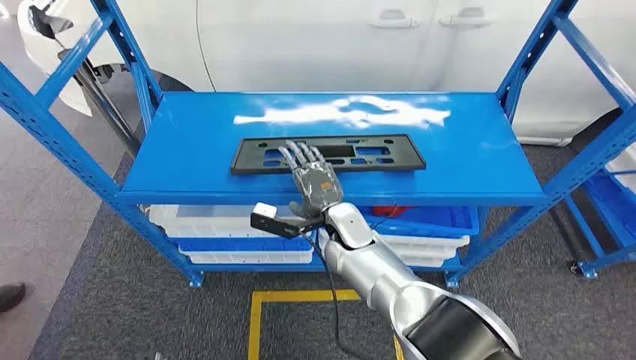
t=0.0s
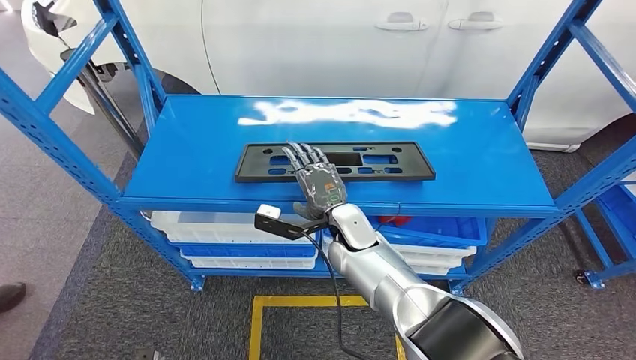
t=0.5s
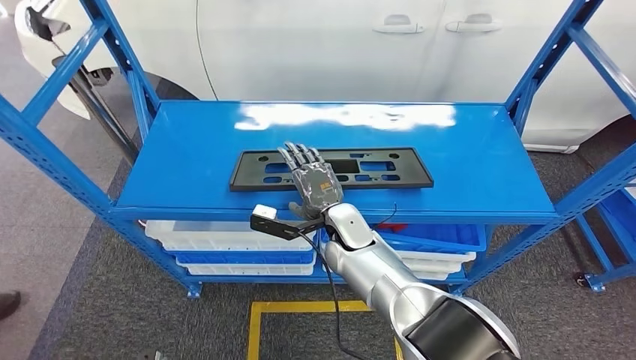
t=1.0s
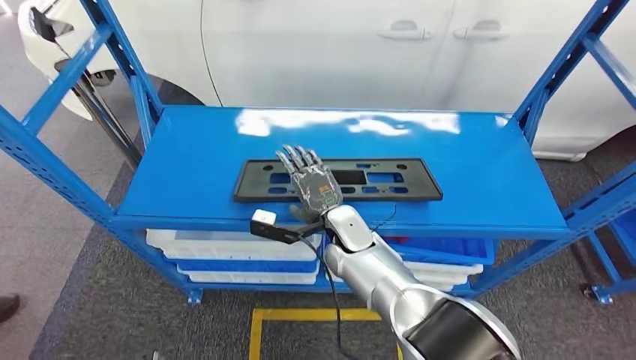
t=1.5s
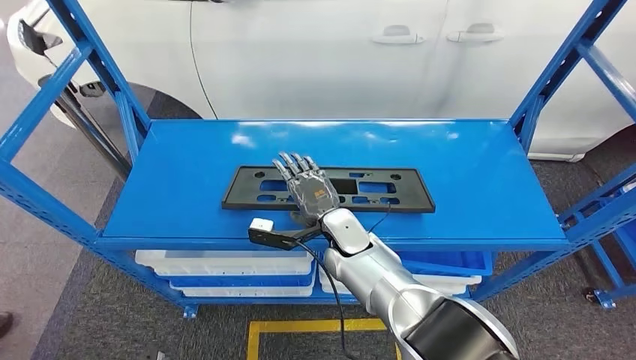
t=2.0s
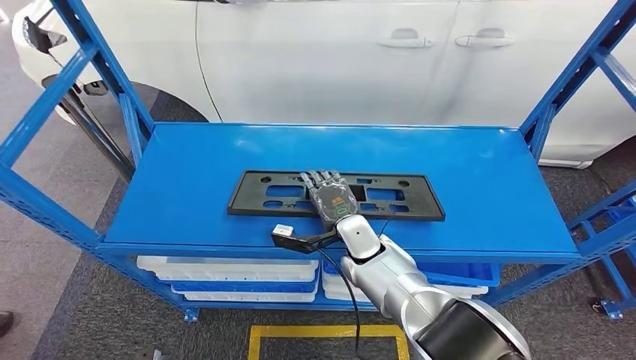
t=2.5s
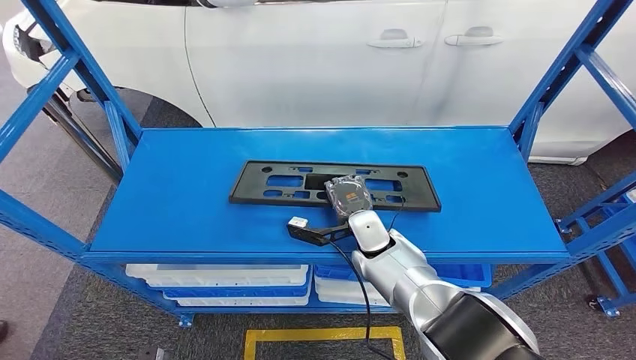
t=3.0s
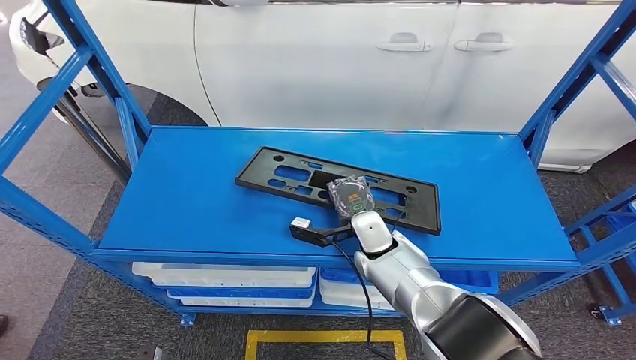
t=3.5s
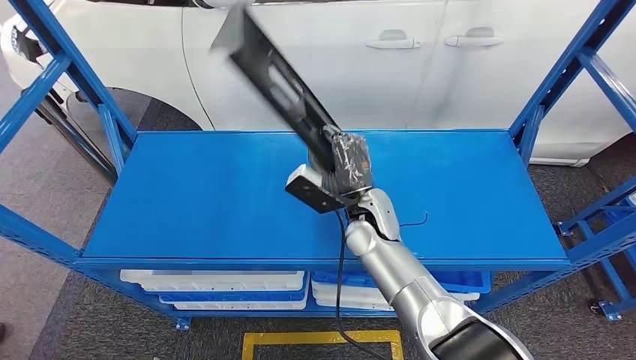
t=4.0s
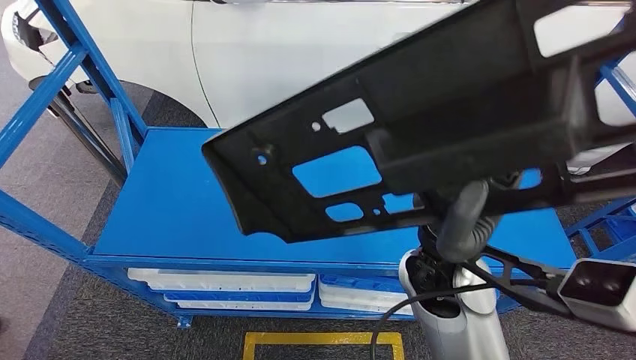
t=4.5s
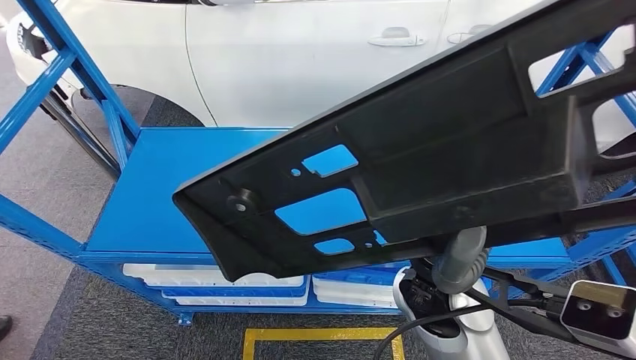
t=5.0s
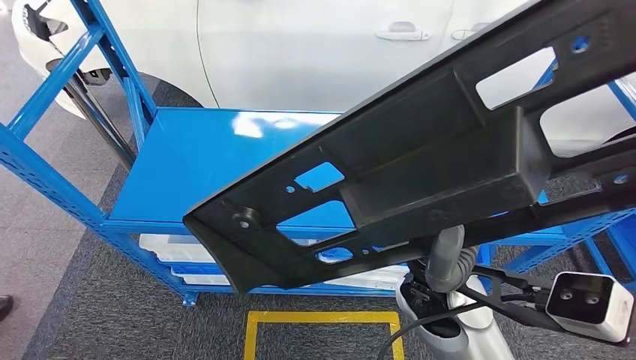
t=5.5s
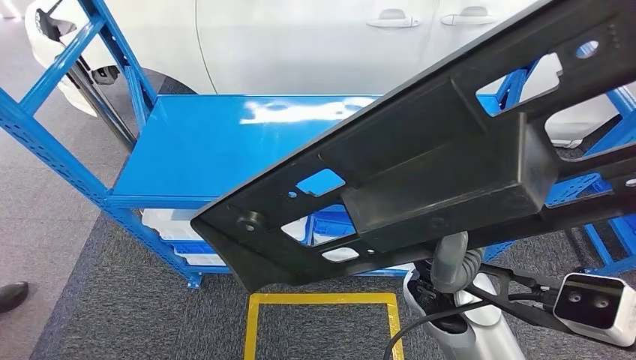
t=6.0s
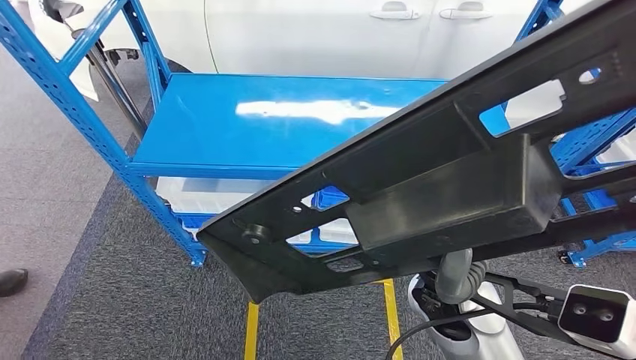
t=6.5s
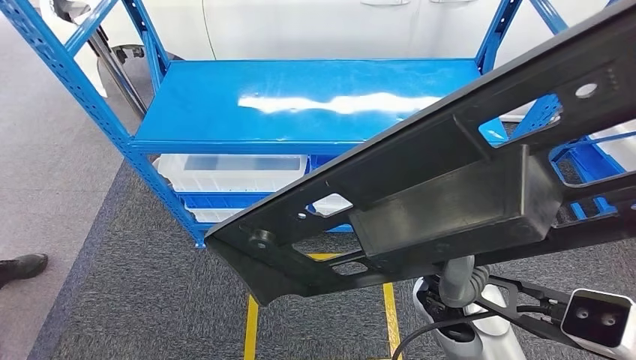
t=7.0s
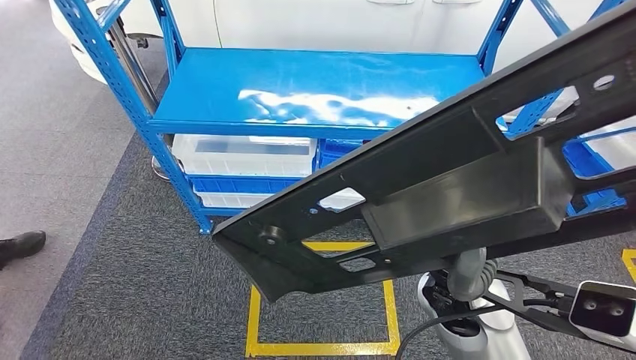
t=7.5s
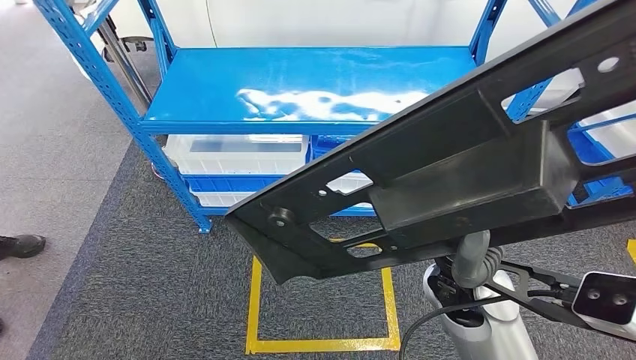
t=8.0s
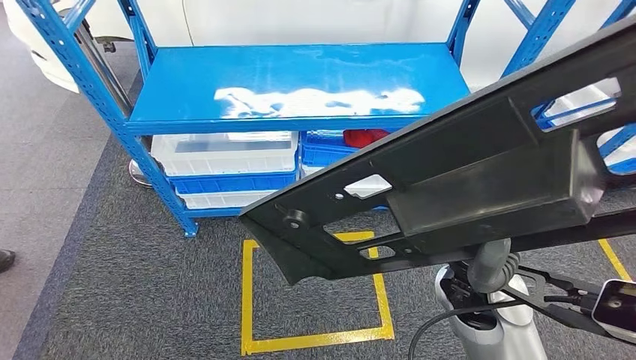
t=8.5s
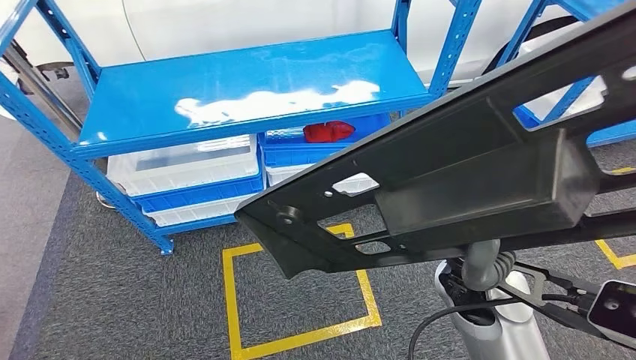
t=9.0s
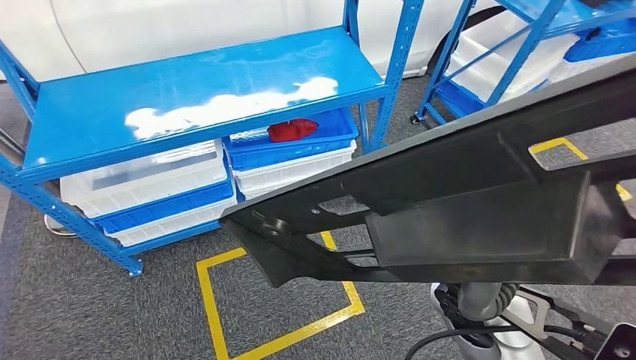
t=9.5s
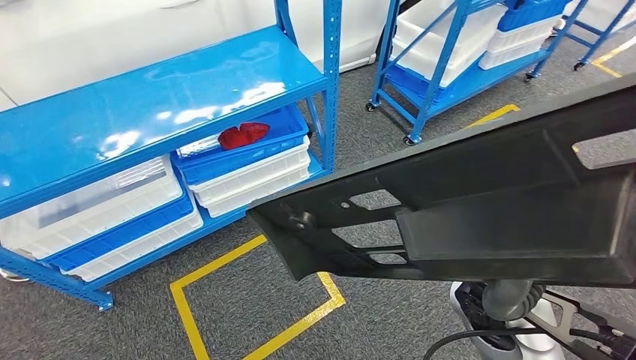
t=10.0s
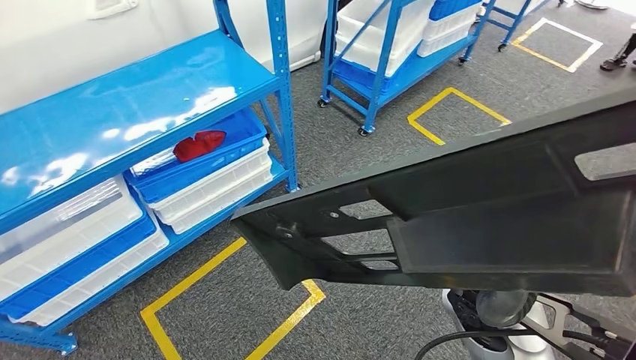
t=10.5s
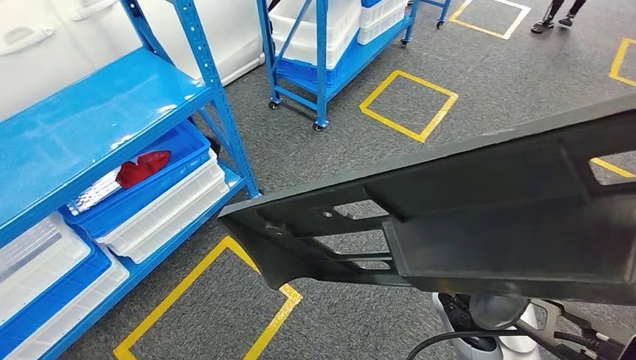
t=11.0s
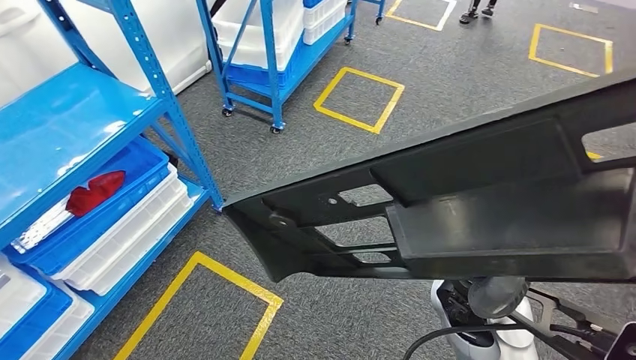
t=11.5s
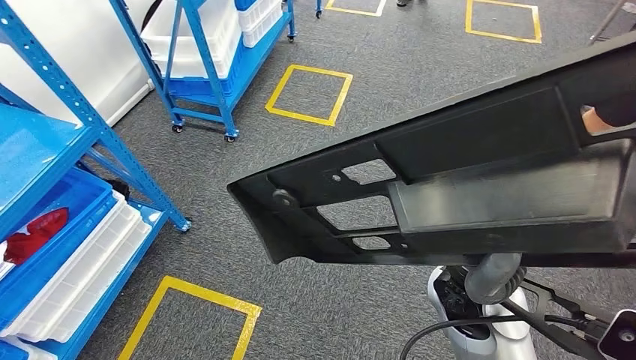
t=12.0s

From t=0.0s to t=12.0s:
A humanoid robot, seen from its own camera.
Step, from t=0.0s to t=4.5s: Pick up the large material from the shelf.

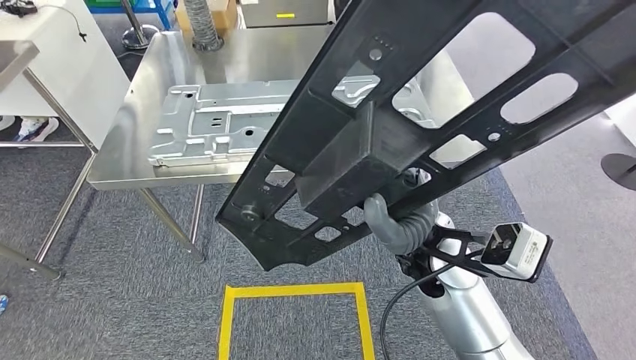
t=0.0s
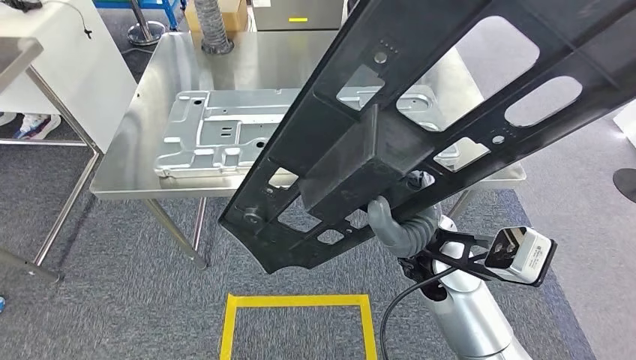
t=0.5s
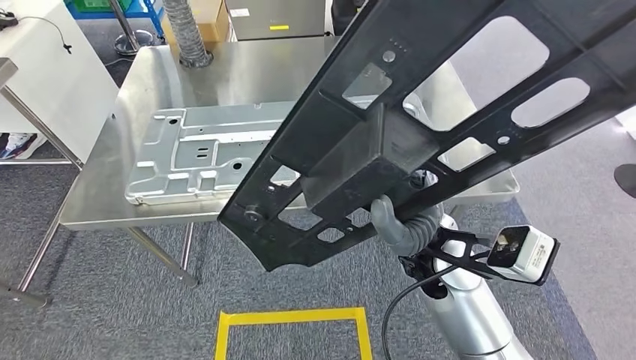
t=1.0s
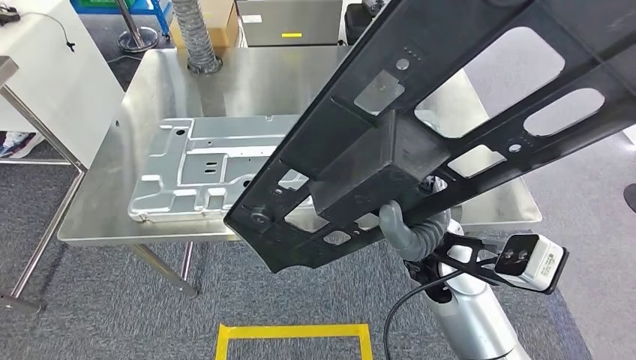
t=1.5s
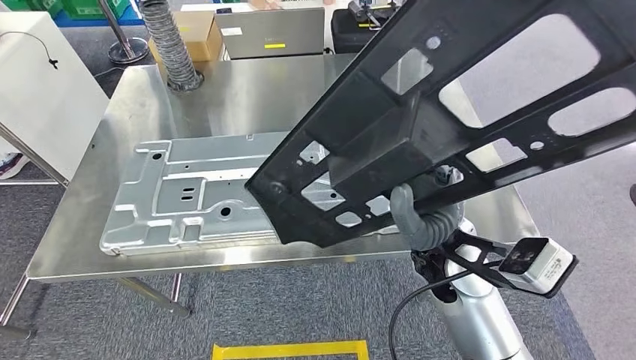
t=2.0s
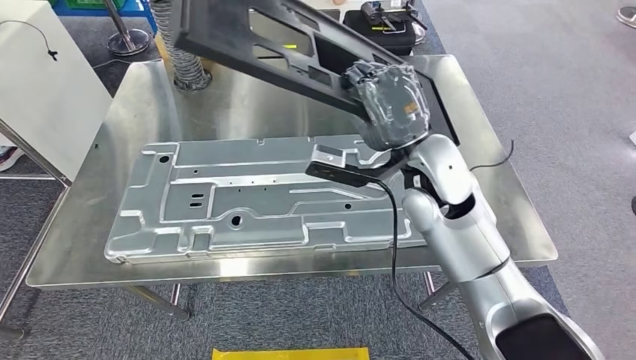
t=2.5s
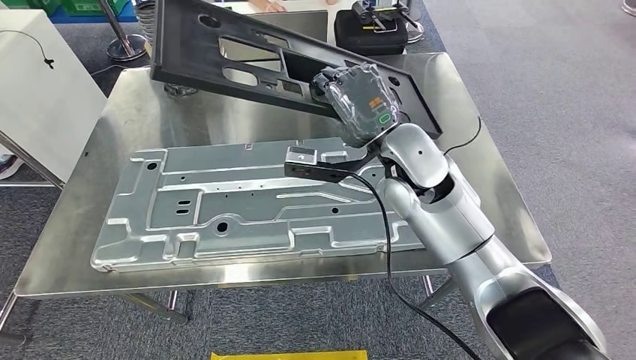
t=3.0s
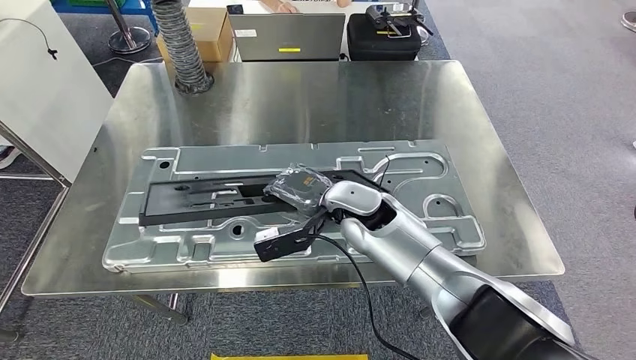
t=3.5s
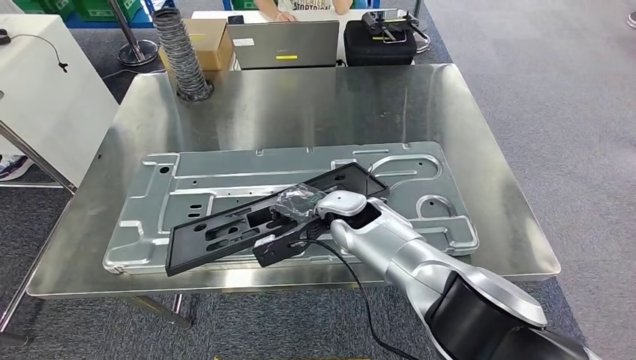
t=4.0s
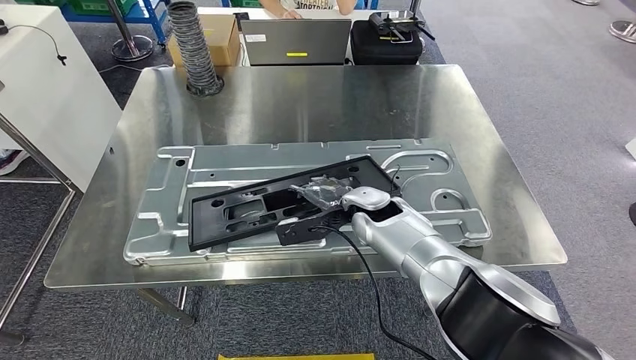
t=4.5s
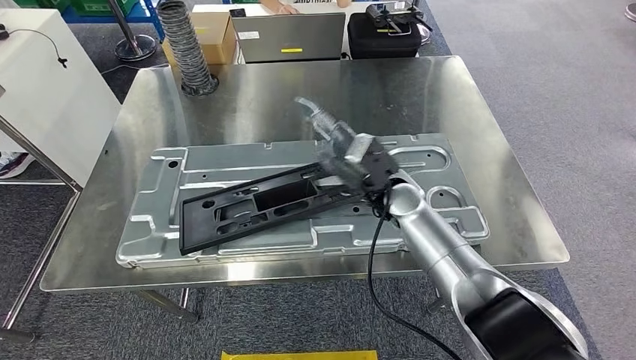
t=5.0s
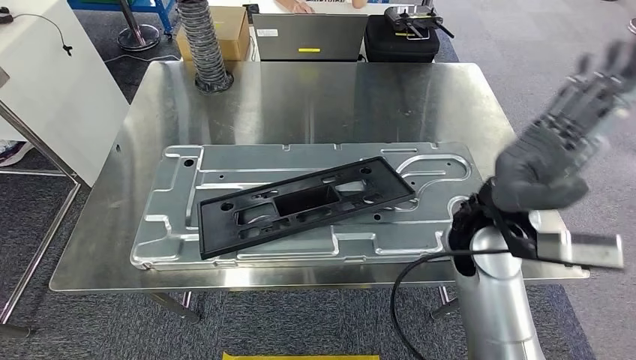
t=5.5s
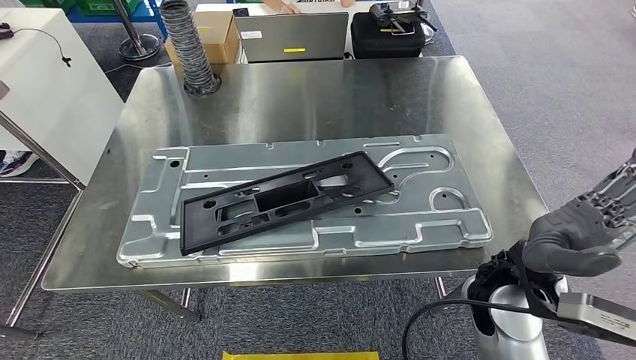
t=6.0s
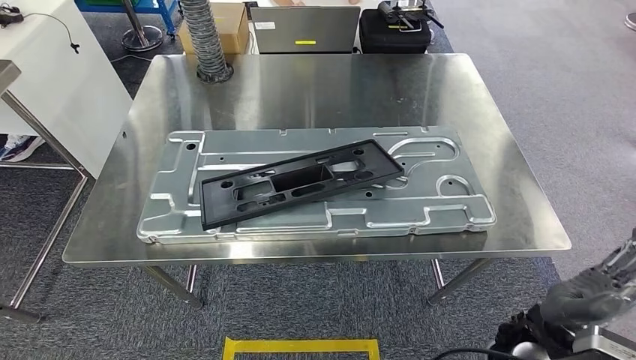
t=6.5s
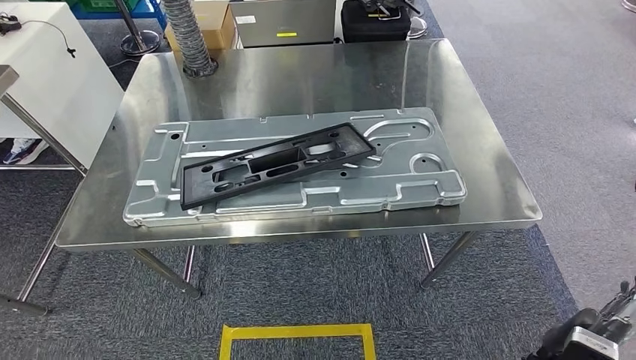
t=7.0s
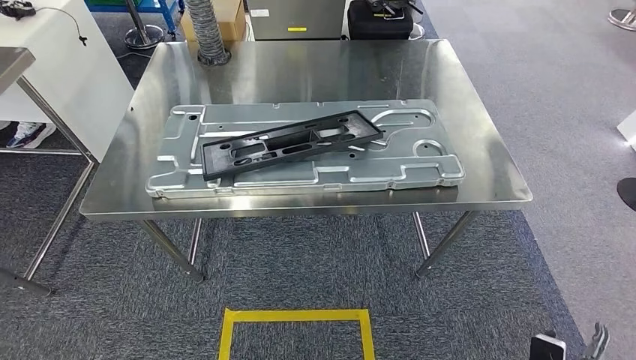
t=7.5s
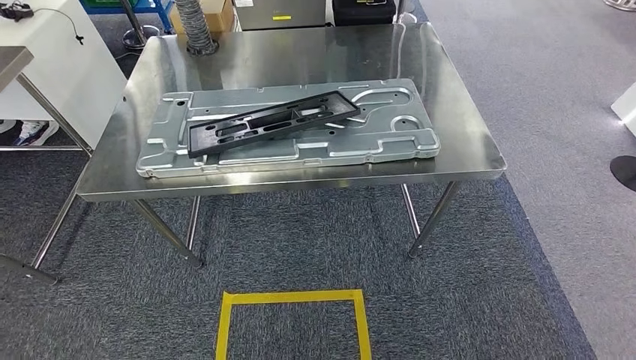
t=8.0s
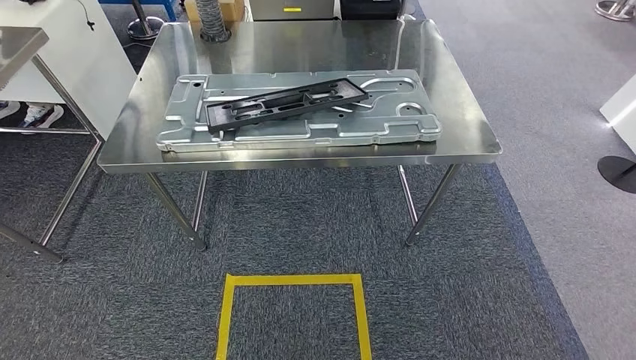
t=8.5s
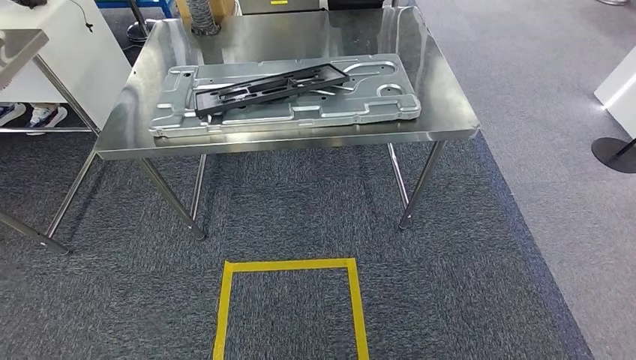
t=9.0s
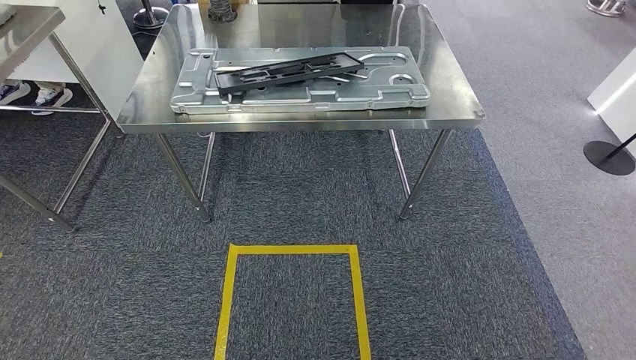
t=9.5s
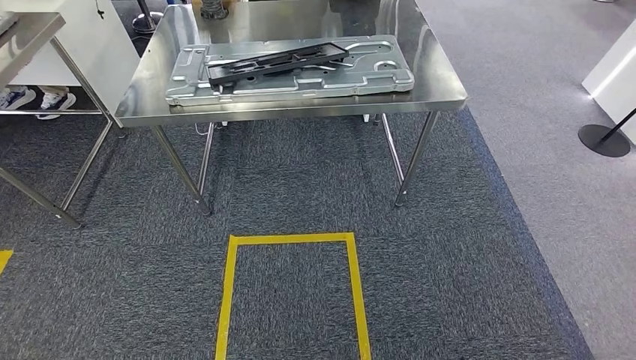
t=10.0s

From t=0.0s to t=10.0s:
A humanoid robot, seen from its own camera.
Step, from t=1.5s to t=6.0s: Insert the large material into the corresponding slot on the workbench.
Step, from t=6.5s to t=10.0s: Move to the initial position of the shelf.
